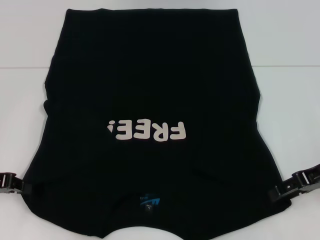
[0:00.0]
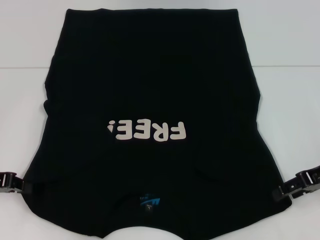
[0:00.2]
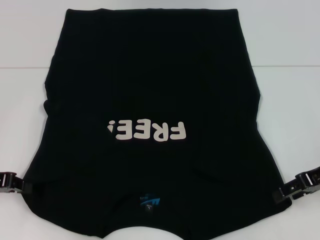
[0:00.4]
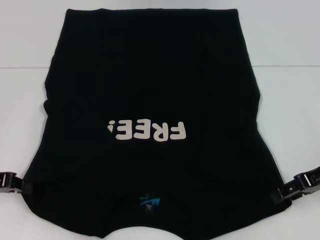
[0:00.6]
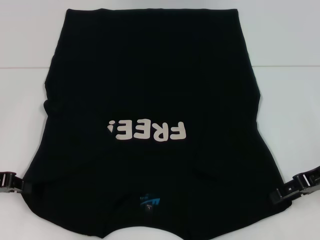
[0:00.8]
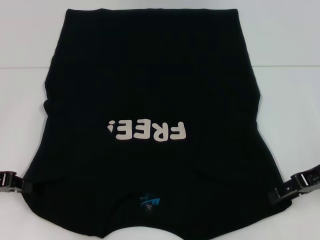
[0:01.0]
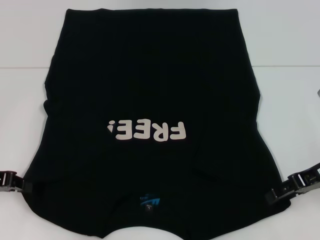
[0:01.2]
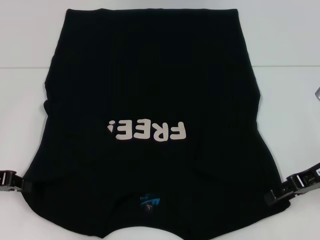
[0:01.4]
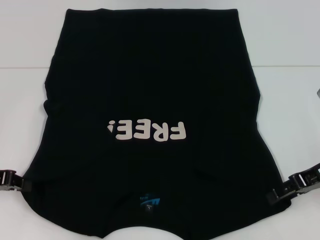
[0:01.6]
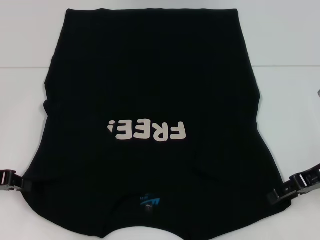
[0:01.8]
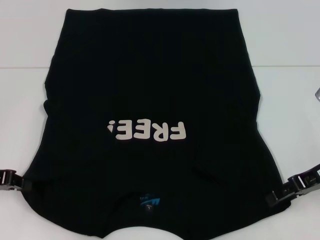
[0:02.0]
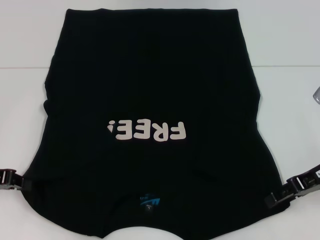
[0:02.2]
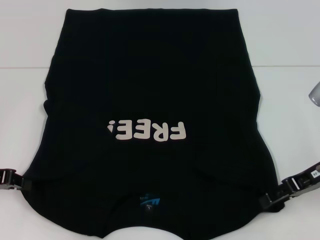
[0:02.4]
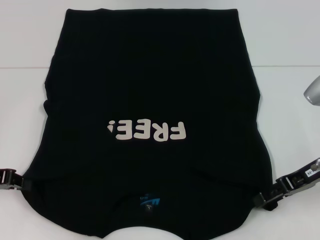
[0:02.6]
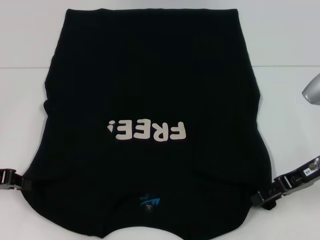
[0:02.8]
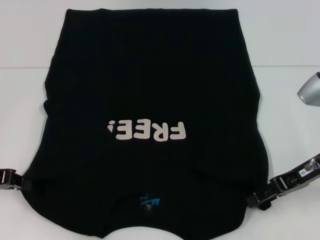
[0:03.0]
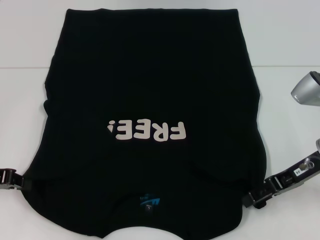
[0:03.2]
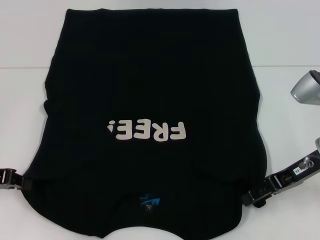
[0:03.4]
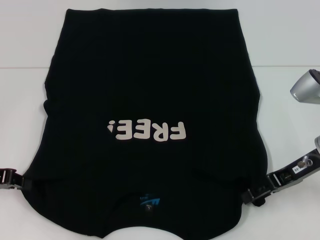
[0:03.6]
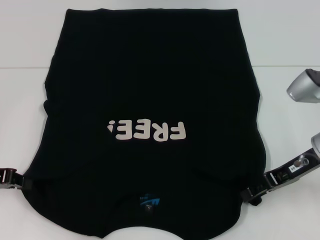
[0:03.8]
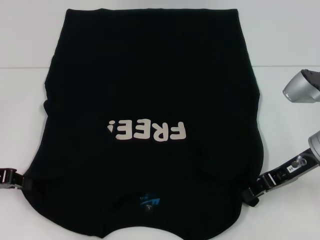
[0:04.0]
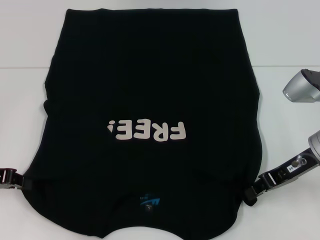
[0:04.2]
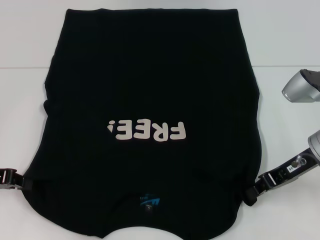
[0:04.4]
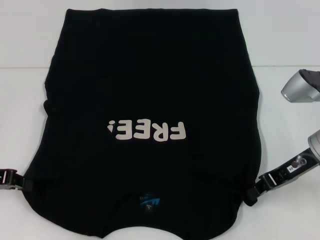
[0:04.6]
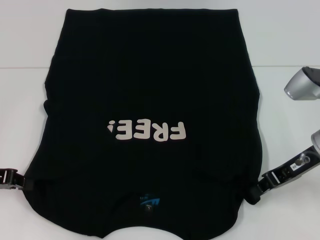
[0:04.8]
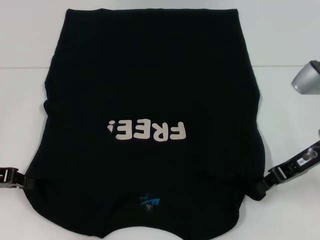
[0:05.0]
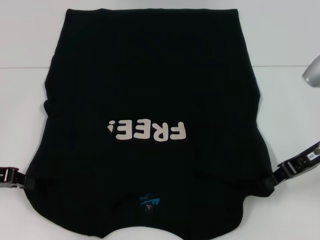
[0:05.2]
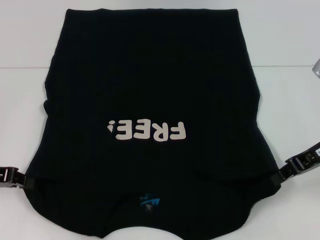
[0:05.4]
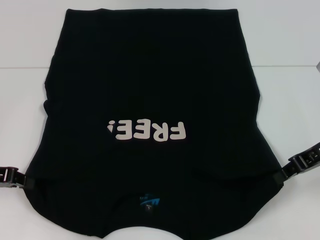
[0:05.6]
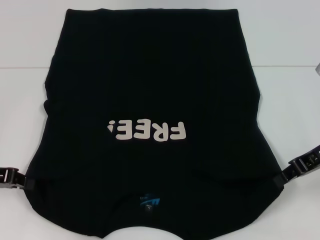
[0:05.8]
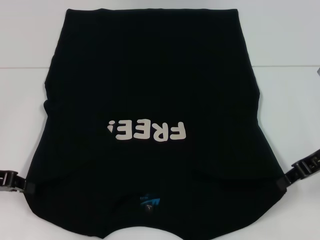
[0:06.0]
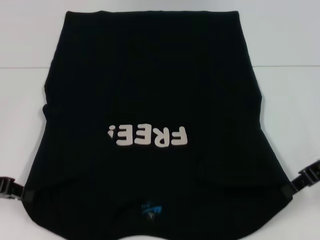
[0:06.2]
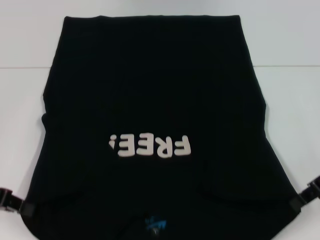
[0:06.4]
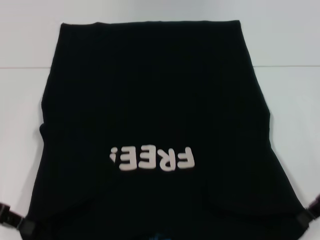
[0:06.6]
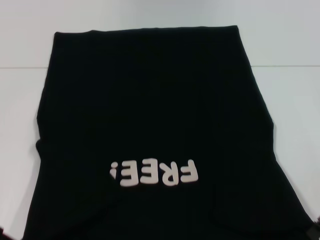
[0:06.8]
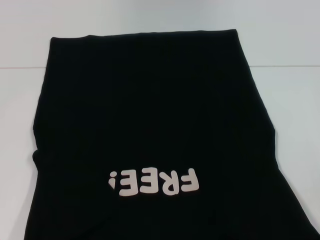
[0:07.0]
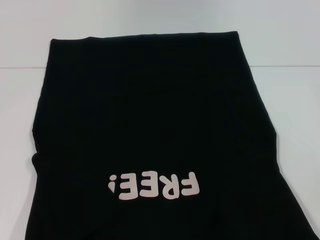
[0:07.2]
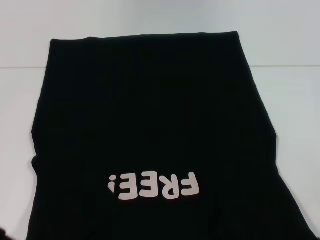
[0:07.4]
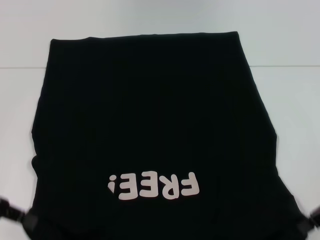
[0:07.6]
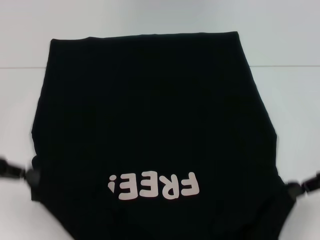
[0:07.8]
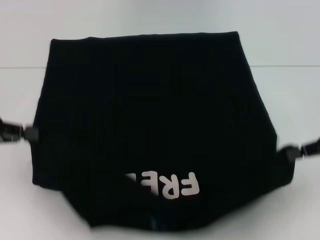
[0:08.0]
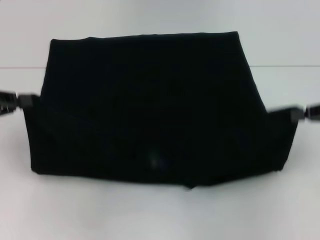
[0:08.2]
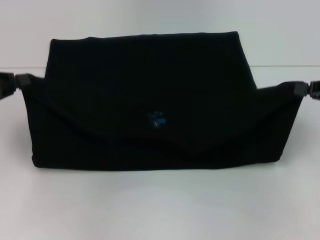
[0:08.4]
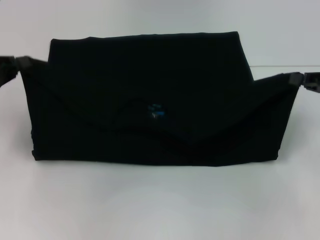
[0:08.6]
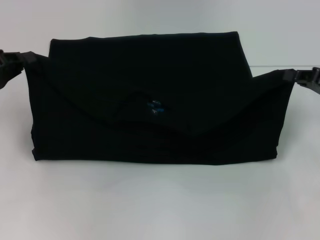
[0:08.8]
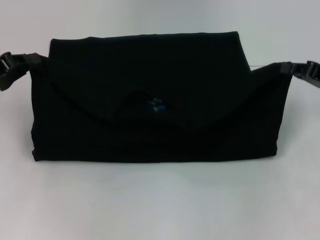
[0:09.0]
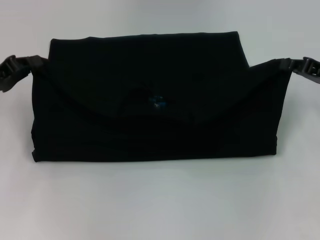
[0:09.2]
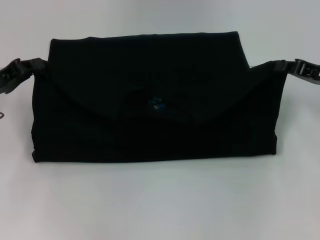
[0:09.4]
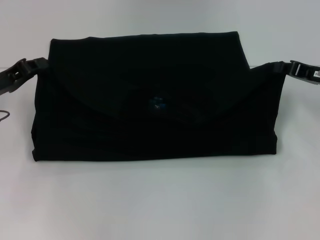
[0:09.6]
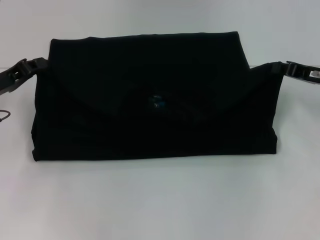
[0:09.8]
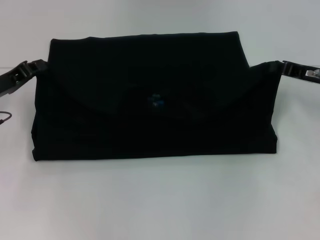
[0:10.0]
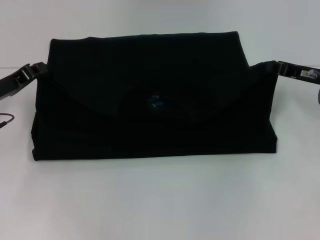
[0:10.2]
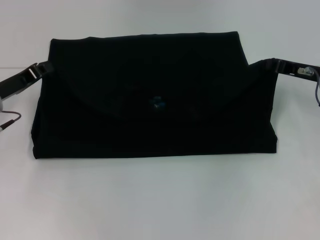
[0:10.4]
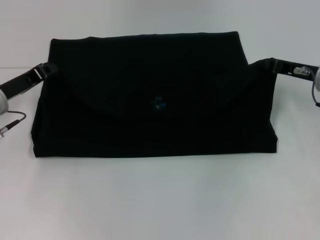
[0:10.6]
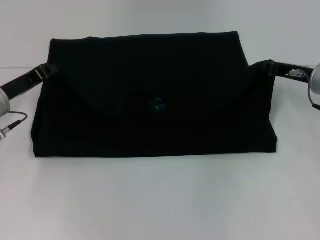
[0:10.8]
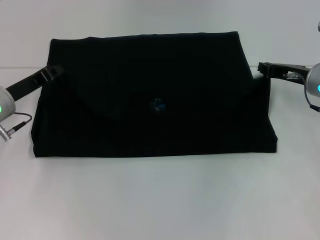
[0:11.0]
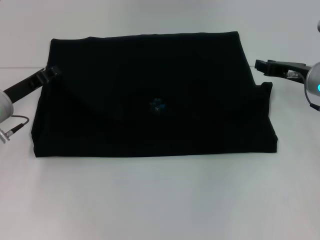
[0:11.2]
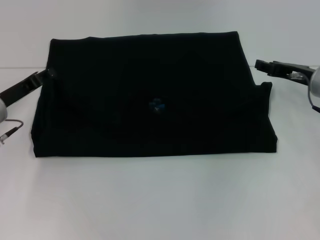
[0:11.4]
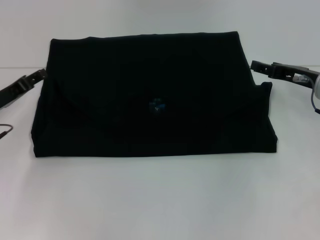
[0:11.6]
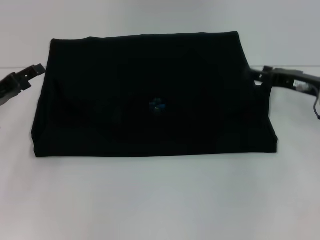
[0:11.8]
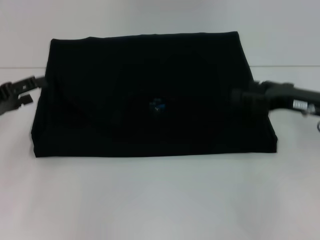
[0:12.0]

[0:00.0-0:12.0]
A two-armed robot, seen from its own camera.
Step, 0.0 to 3.4 s: Grab the bottom right corner with your right hand.
Step, 3.6 to 11.0 s: Fold the clothes with your left hand.
Step, 3.6 to 11.0 s: Fold the clothes with your right hand.
0.0 to 1.6 s: Both grippers stay put.
1.6 to 3.0 s: The grippers stay close to where they were, moving slightly.
3.0 to 4.4 s: The right gripper closes.
4.4 to 6.0 s: The right gripper moves about 5 cm.
7.6 to 9.0 s: Both grippers move forward, about 5 cm.
9.0 to 10.4 s: The right gripper ends up about 5 cm from where it was, while the left gripper ends up about 5 cm from where it was.
10.4 to 12.0 s: The right gripper moves backward, roughly 5 cm, and opens its fingers. The left gripper changes place by some 5 cm, and opens.

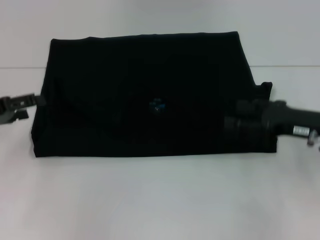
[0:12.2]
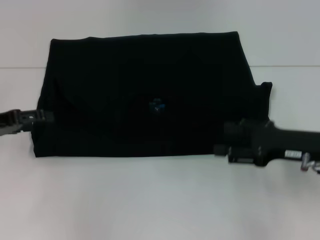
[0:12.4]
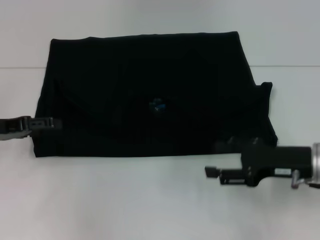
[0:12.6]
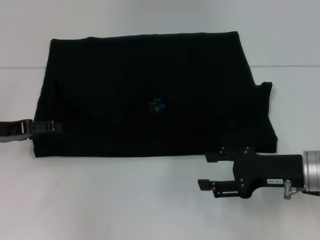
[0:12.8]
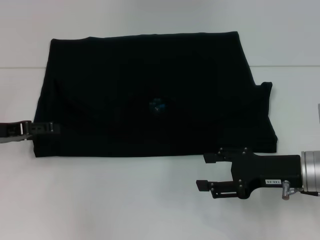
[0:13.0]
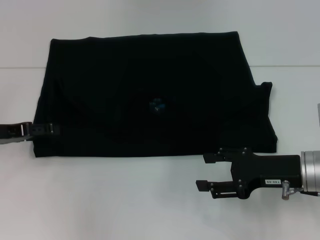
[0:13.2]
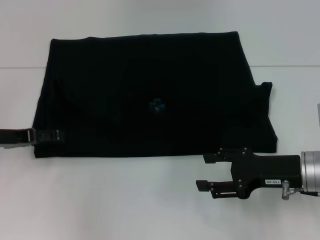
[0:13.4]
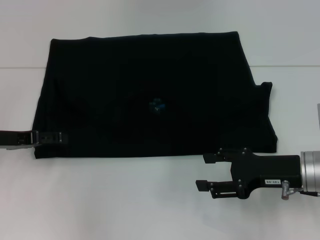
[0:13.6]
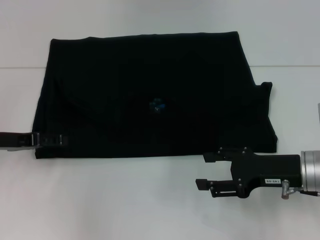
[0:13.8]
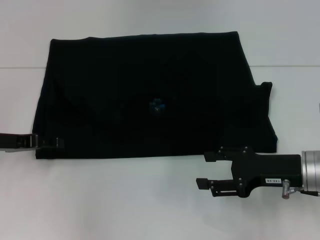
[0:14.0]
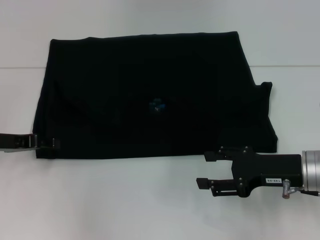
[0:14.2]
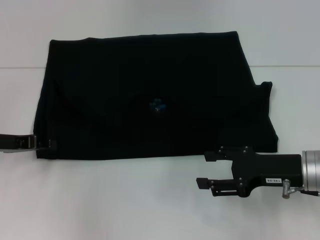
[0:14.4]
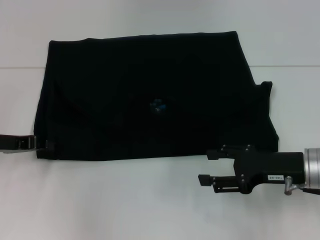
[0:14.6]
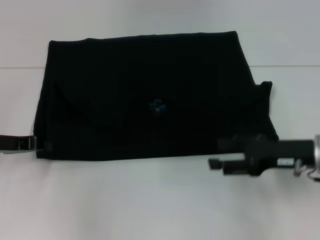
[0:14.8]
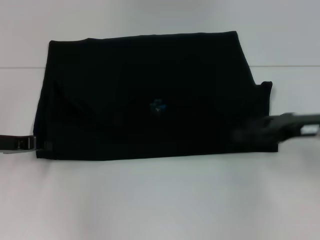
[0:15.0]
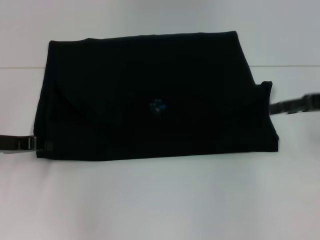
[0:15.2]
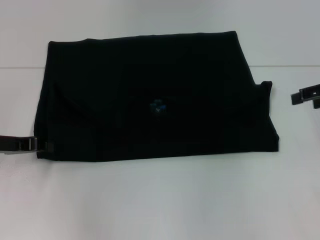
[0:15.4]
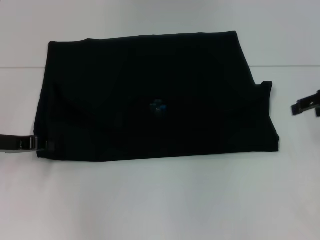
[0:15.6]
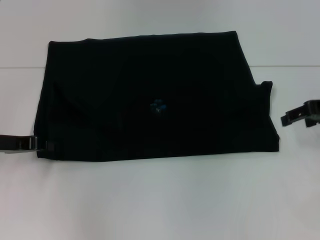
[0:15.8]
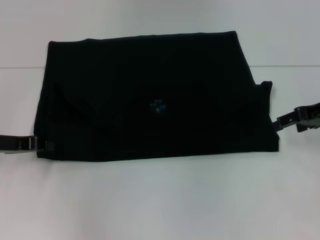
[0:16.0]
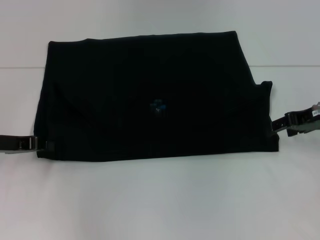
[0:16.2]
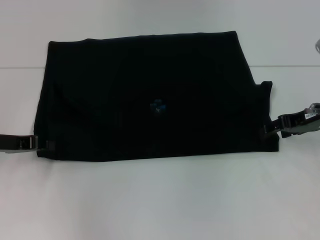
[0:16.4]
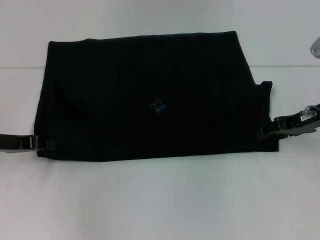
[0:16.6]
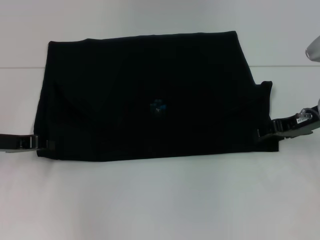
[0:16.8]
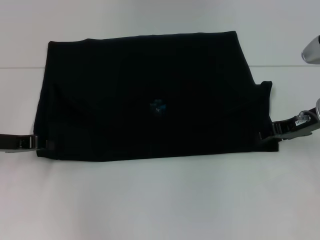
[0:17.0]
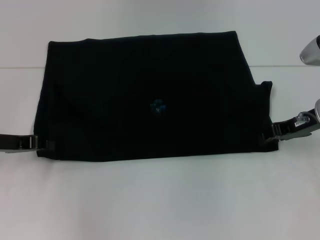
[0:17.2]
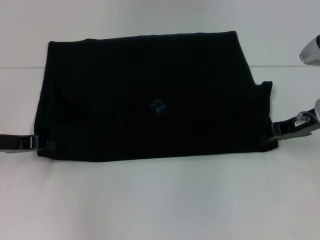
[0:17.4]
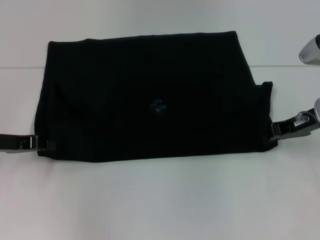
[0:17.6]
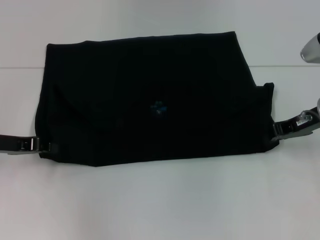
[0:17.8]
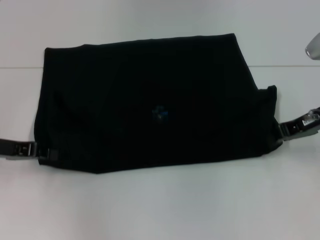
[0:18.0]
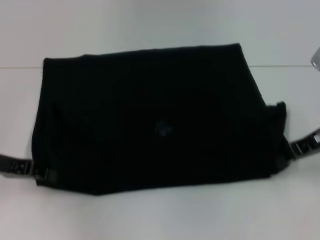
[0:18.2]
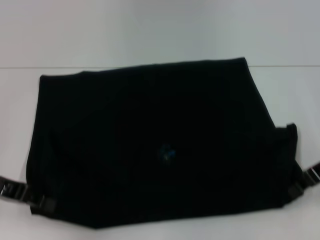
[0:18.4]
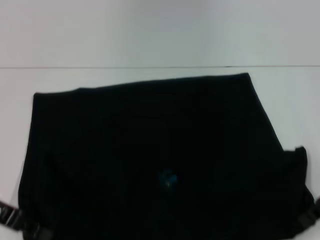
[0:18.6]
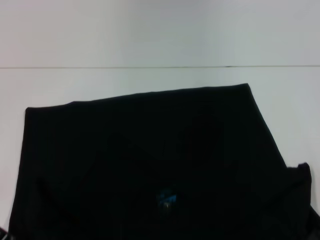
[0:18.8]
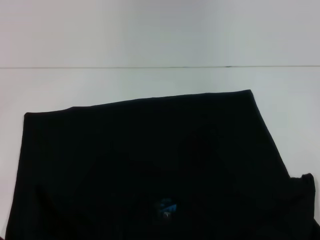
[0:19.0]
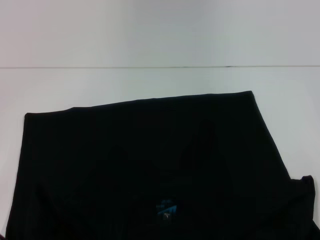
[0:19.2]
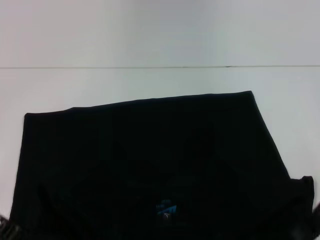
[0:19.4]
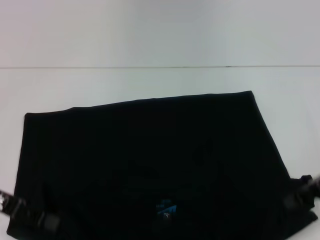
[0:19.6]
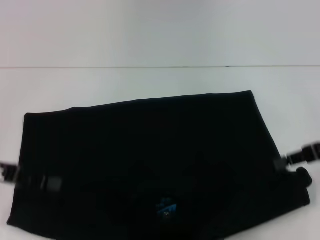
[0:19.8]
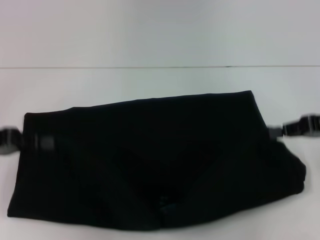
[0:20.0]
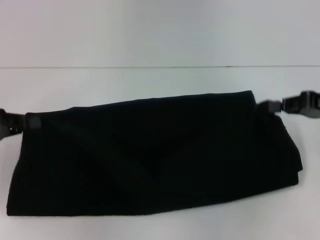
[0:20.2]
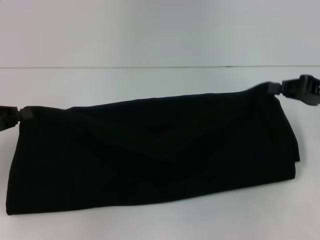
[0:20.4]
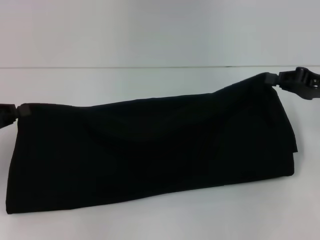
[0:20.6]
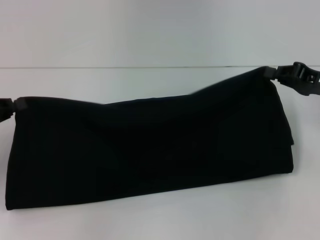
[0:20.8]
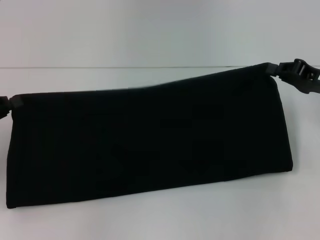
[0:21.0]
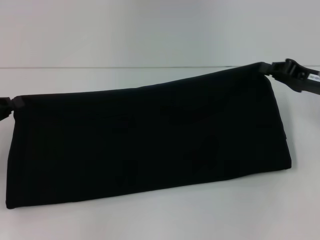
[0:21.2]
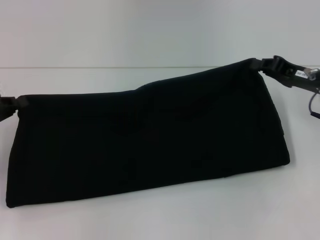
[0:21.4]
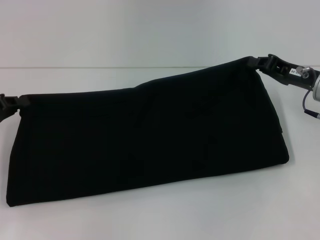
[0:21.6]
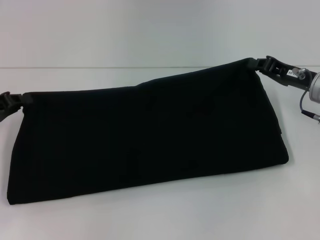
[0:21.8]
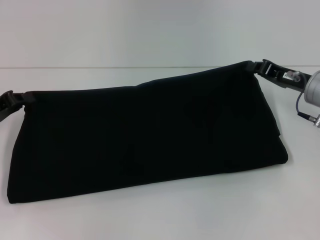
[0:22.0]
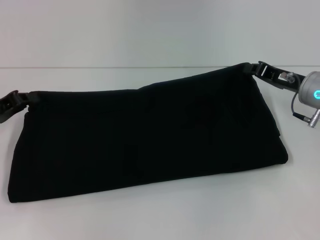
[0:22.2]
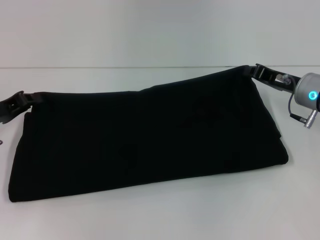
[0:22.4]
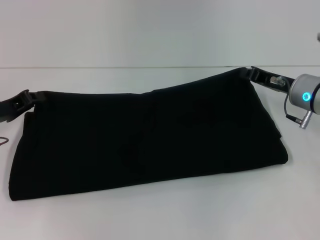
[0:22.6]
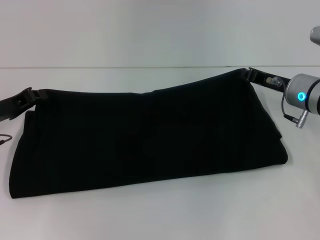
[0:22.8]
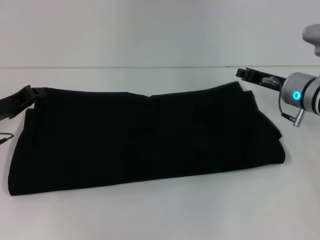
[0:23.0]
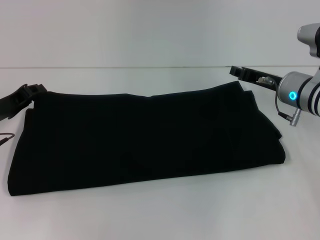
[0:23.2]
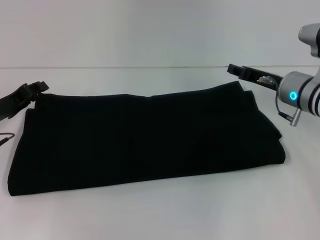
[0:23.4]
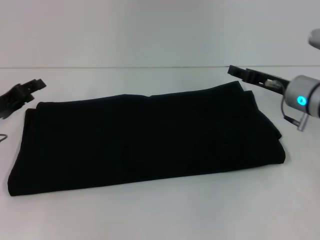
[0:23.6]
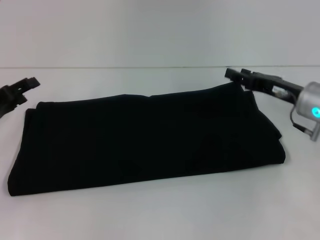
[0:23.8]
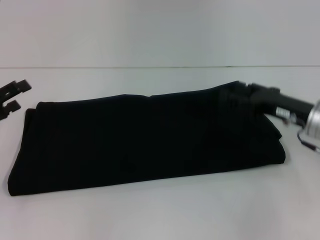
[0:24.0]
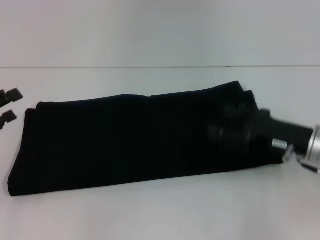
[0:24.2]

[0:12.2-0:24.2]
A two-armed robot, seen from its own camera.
Step, 12.2 to 19.0 s: Pull the clothes with your left hand.
Step, 12.2 to 19.0 s: Pull the clothes with your right hand.
Step, 19.2 to 23.6 s: Fold the clothes with your right hand.
12.2 to 13.8 s: The right gripper shifts by approximately 5 cm. The left gripper moves about 5 cm.
13.8 to 15.2 s: The left gripper closes, while the right gripper goes about 15 cm upward, to the right and forward.
15.2 to 16.6 s: The right gripper heads downward, covering some 5 cm.
16.6 to 18.2 s: The right gripper closes.
18.2 to 19.8 s: The right gripper changes place by roughly 5 cm.
19.8 to 21.2 s: The left gripper ends up about 5 cm from where it was; the right gripper changes place by roughly 5 cm.
21.2 to 22.6 s: The left gripper shifts by some 5 cm. Meanwhile the right gripper travels to the left by approximately 5 cm.
22.6 to 24.2 s: Both grippers travel together backward, roughly 10 cm. The right gripper opens its fingers; the left gripper opens its fingers.
